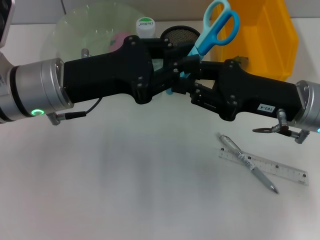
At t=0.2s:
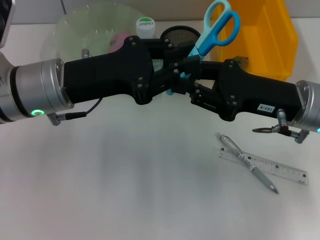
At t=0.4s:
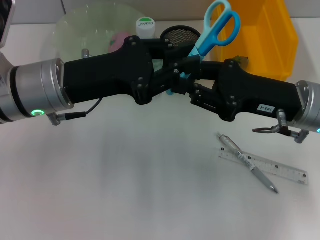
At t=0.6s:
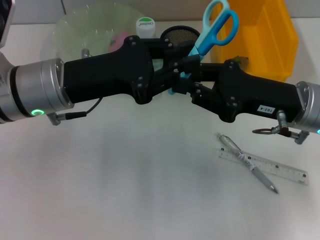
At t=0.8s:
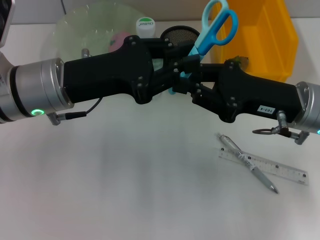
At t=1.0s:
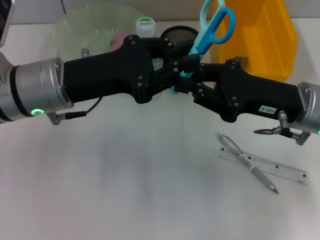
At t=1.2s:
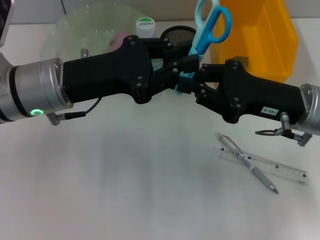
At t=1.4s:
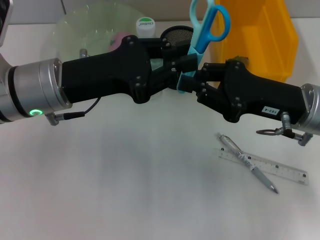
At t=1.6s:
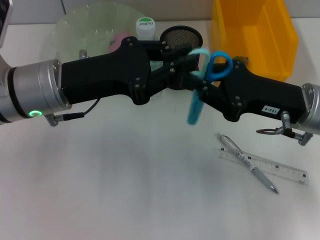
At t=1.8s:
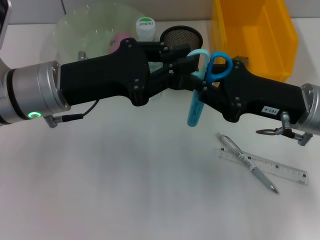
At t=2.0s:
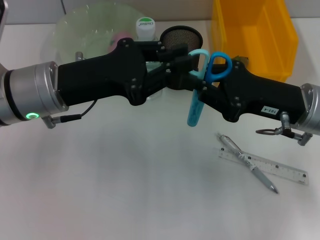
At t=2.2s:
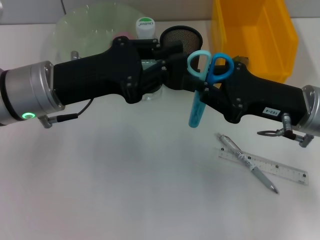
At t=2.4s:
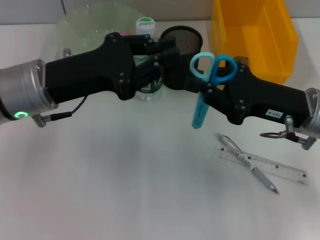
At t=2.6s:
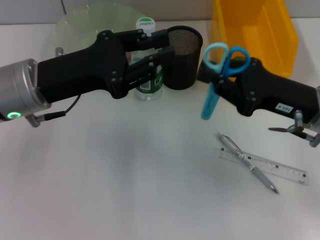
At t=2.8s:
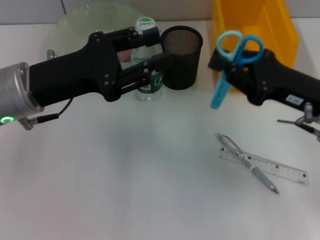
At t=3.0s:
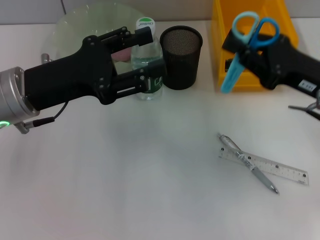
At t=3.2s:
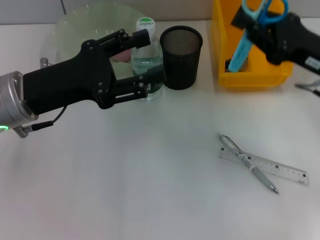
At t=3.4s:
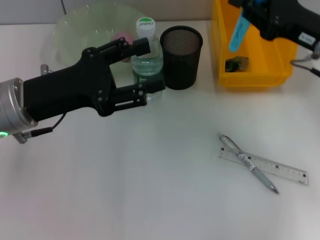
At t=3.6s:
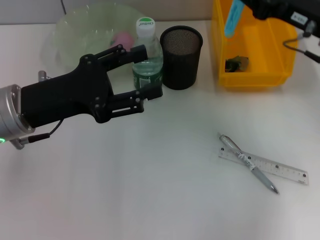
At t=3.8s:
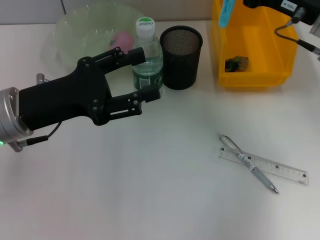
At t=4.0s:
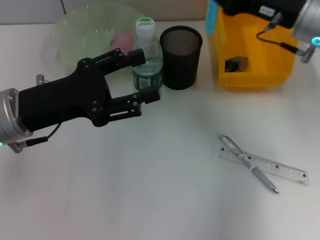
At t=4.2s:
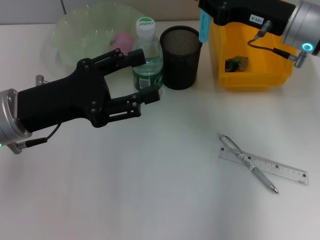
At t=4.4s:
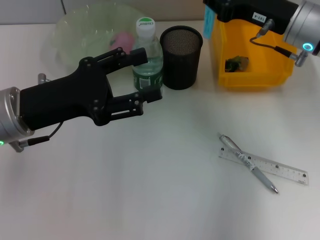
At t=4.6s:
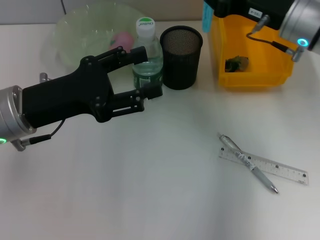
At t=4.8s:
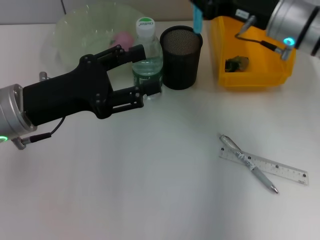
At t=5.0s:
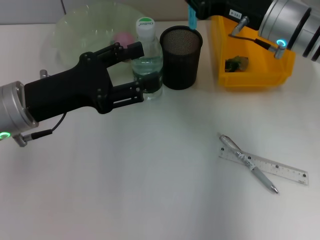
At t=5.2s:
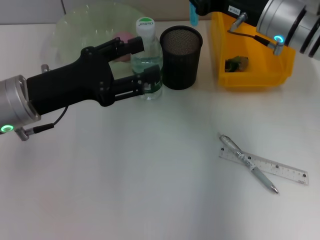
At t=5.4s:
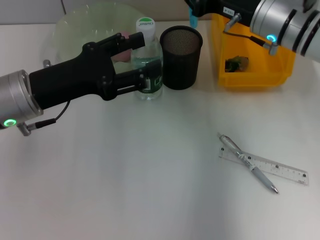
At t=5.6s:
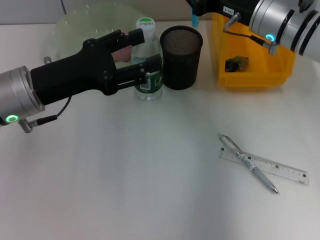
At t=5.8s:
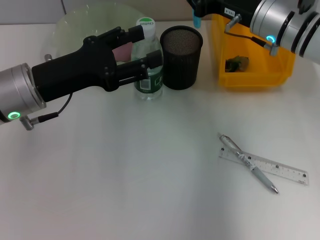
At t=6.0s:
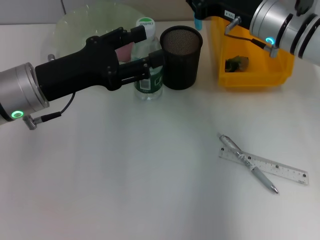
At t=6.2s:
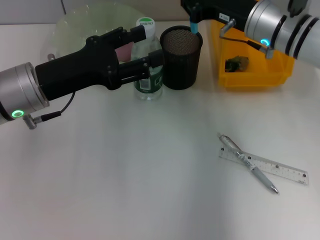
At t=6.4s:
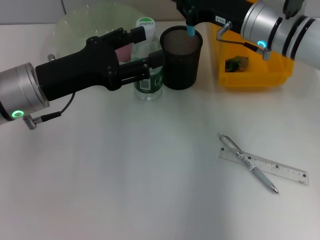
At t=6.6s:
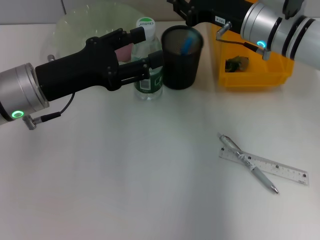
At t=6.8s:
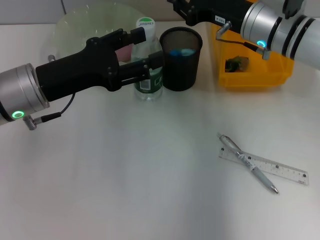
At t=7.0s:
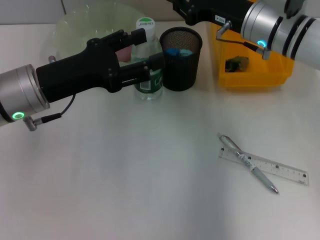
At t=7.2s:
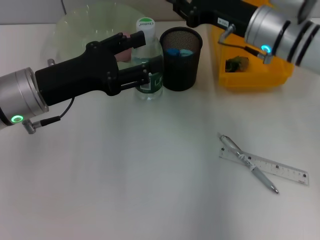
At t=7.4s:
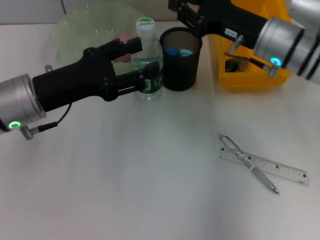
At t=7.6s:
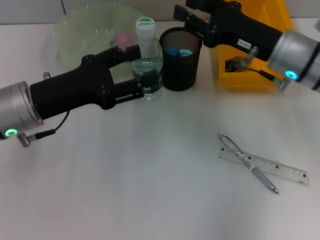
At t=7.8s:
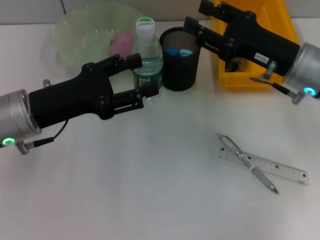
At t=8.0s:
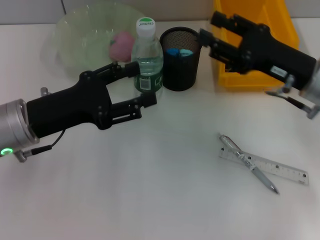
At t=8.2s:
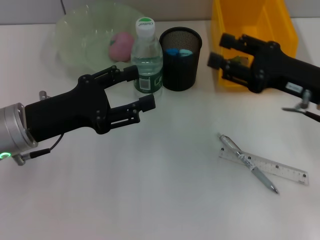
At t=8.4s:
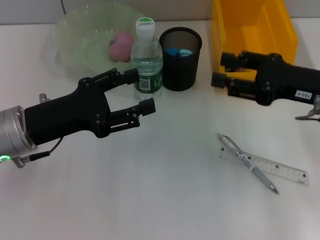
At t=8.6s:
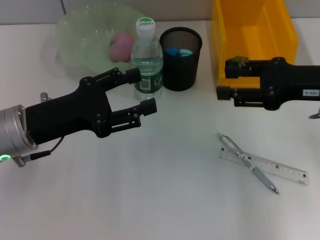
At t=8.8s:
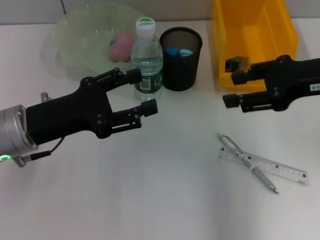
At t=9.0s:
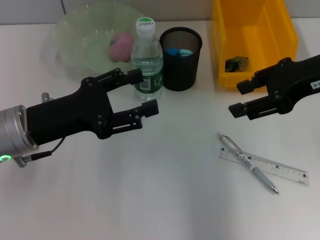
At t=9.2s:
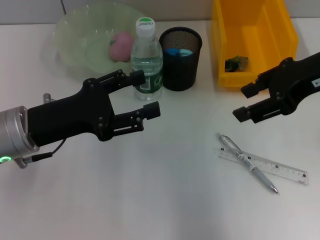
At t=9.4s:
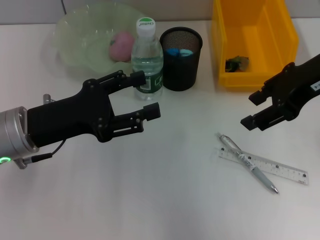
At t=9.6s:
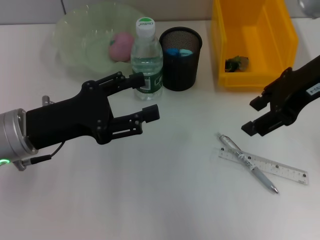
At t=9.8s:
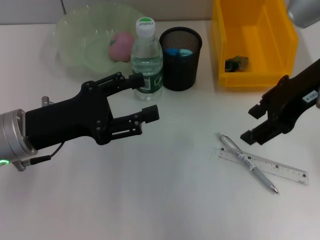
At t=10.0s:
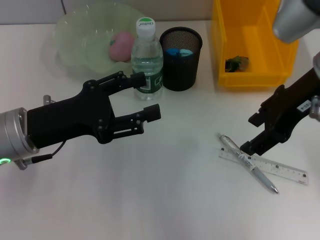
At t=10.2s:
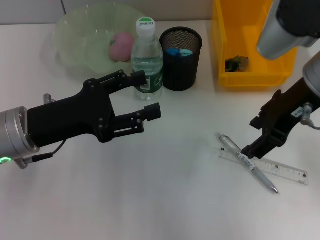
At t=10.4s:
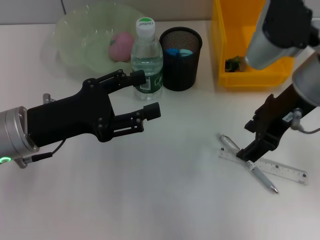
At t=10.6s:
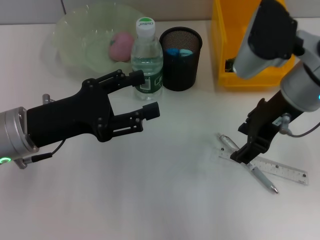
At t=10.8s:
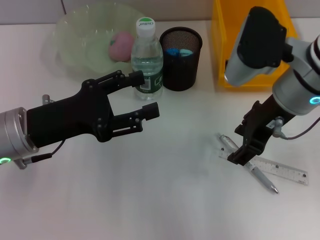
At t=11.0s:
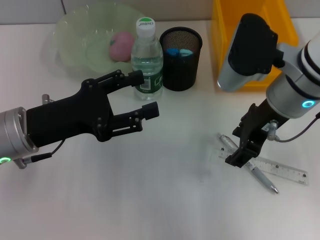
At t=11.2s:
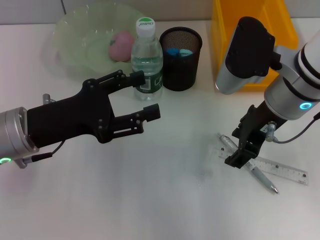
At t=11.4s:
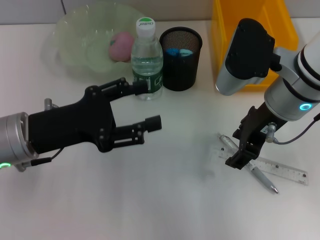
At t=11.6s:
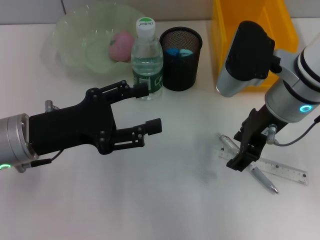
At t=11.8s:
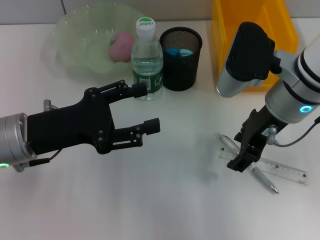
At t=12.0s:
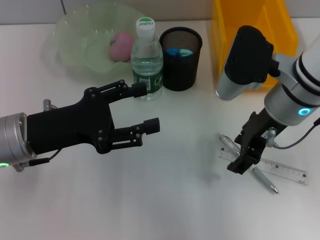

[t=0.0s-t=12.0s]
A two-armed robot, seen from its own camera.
Step, t=0.0s to t=2.4s: Pass the blue scissors from the left hand to the right hand.
Step, t=2.6s to t=7.0s: Place the blue scissors into the pen holder with the right hand.
t=0.0s to t=1.6s: Both grippers stay about where they are.
t=1.6s to t=3.0s: The left gripper opens.
t=3.0s to t=4.4s: The right gripper travels forward by roughly 10 cm.
t=4.4s to t=6.0s: The grippers make only small movements.
t=6.0s to t=7.6s: The right gripper shifts about 5 cm backward.
t=7.6s to t=9.0s: The right gripper moves upward, approximately 10 cm, and opens its fingers.
t=9.0s to t=10.4s: The right gripper heads to the left, covering about 5 cm.
t=10.4s to t=12.0s: The right gripper moves approximately 5 cm.

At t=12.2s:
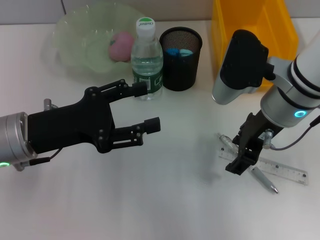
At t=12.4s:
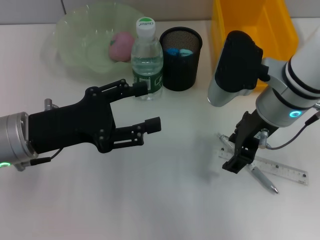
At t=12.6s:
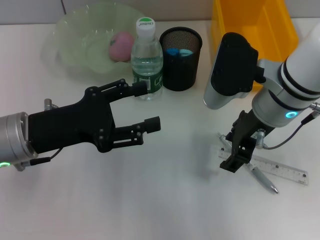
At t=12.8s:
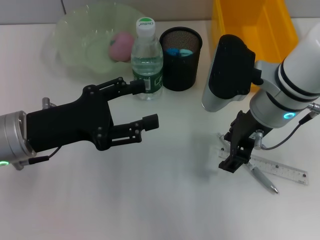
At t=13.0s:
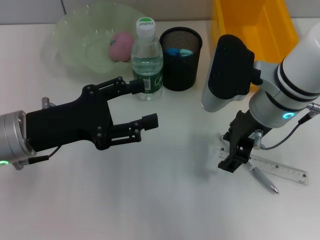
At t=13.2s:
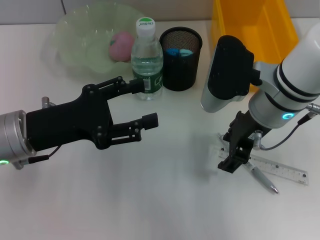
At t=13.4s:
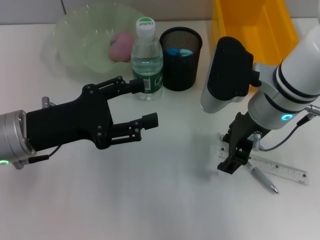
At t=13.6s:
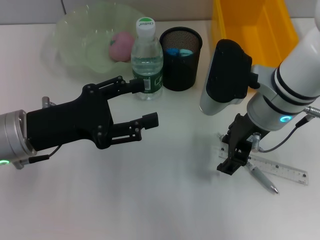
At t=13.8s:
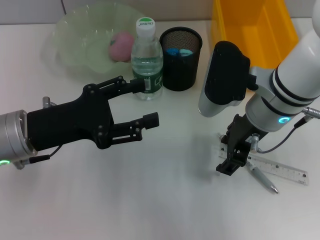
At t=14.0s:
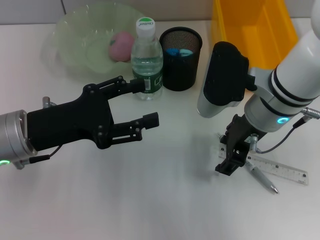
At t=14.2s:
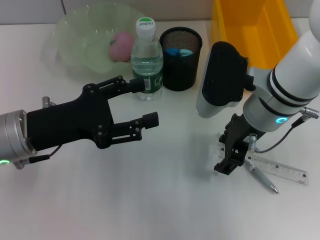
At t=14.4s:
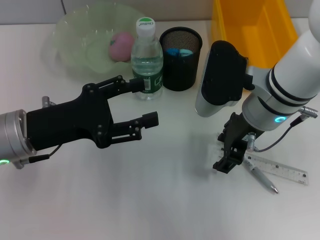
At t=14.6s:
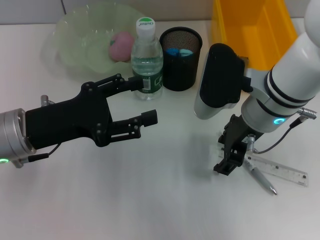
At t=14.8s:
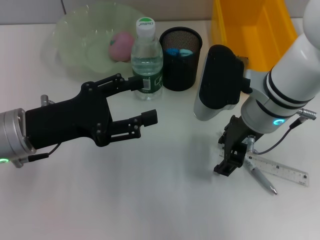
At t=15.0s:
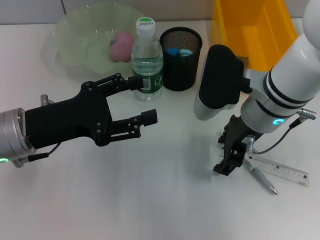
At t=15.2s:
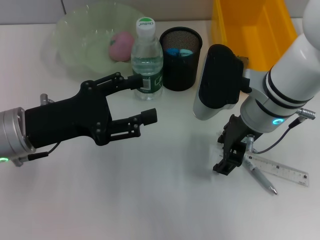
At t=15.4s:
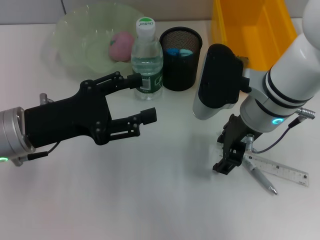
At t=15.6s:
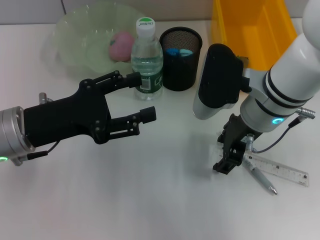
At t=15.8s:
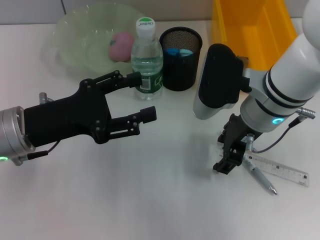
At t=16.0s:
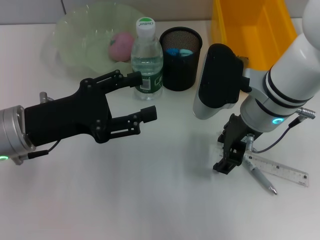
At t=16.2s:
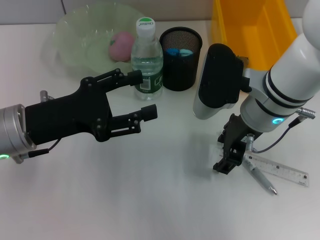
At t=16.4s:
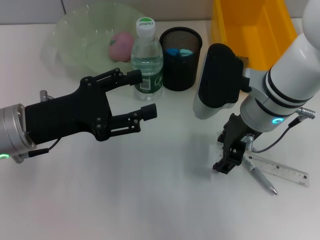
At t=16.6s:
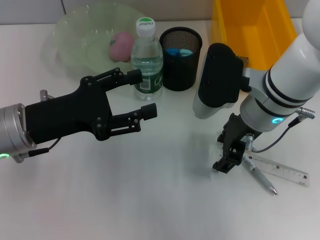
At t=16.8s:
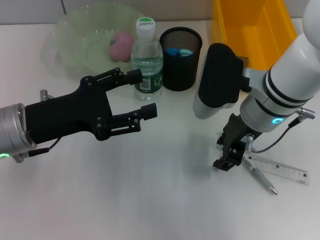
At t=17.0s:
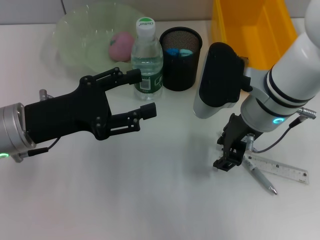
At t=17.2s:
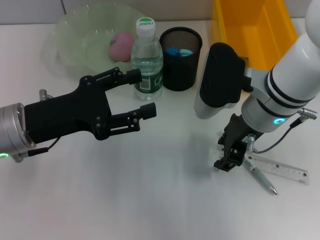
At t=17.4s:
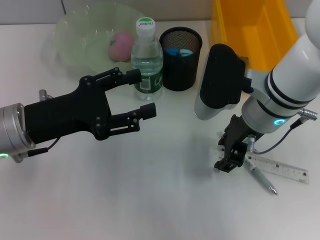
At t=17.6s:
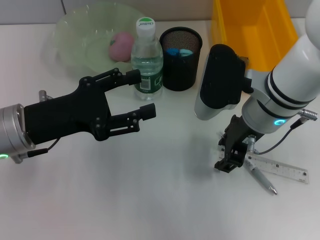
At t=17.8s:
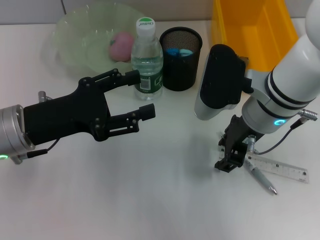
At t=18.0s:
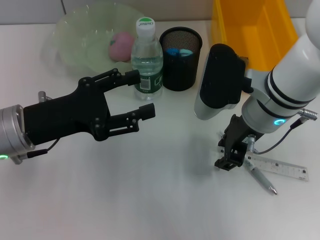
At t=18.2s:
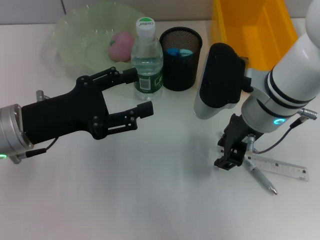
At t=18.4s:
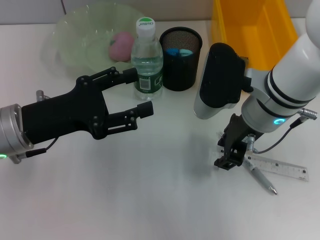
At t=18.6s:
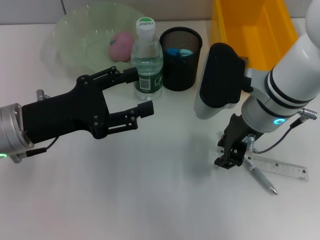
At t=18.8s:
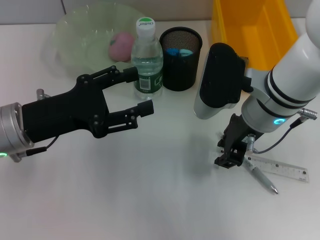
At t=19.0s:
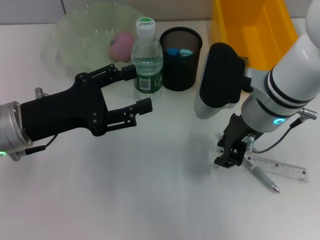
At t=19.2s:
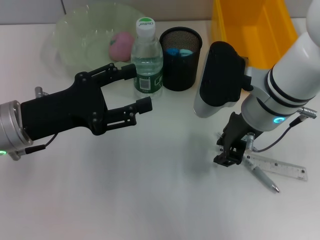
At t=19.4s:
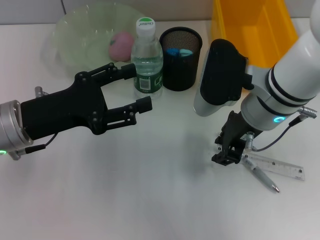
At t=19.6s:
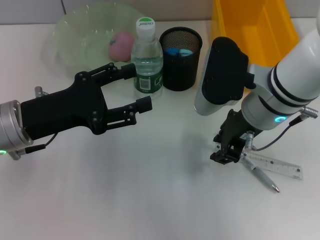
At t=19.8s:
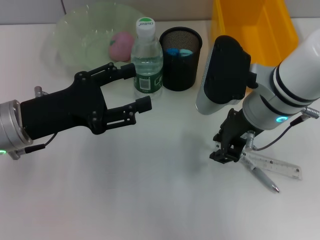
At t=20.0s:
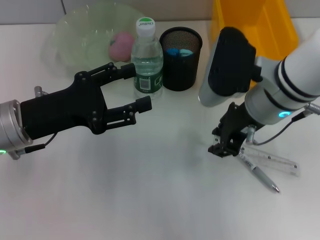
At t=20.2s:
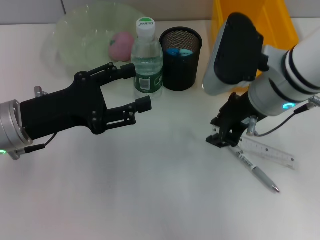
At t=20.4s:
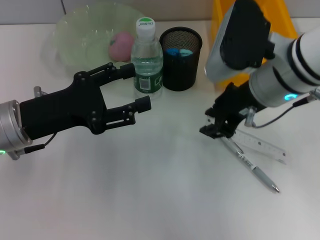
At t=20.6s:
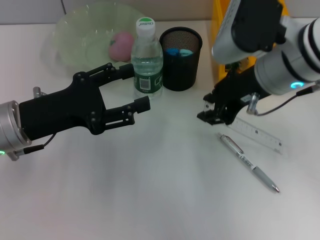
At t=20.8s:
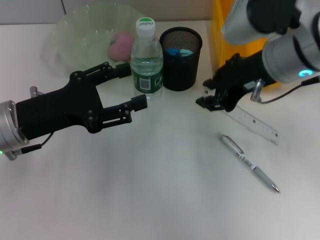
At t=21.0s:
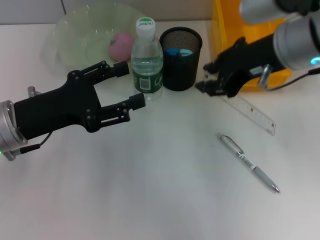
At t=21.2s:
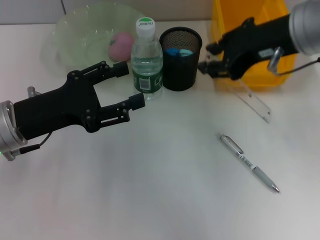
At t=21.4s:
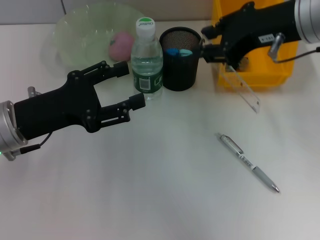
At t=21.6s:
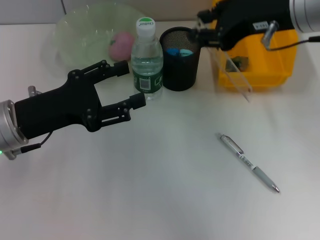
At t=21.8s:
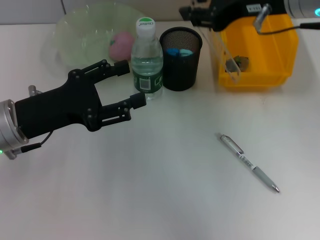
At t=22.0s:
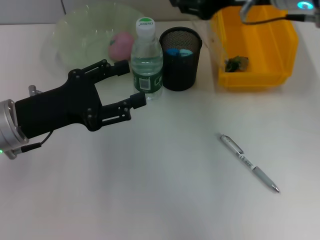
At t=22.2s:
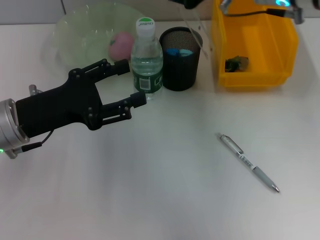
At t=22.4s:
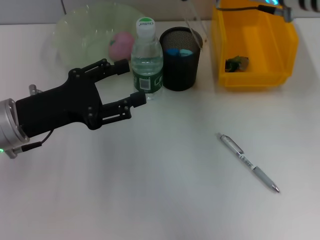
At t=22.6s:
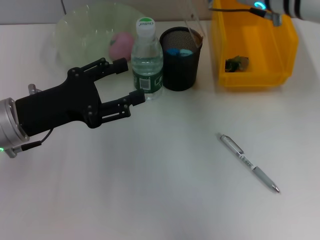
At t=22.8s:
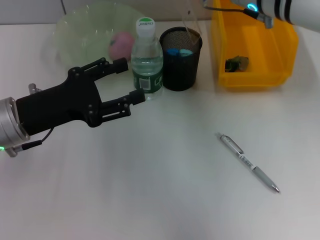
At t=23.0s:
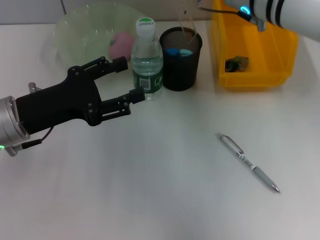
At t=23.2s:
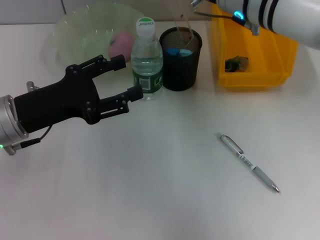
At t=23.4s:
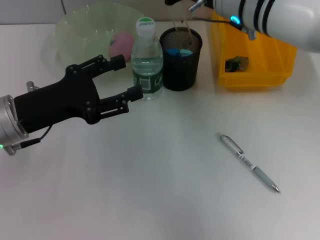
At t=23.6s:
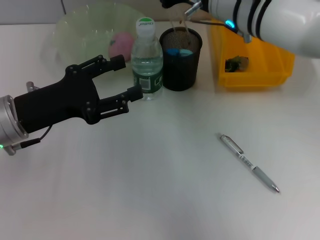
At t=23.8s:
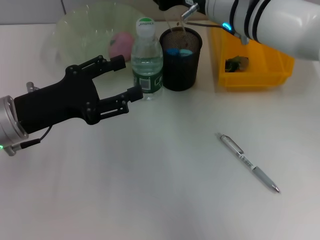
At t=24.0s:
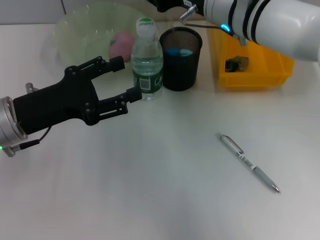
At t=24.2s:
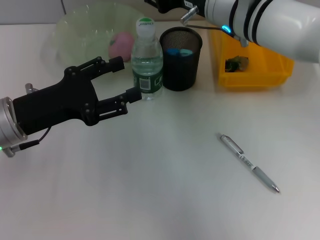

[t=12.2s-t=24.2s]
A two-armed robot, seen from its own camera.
Step, t=12.2s to t=20.2s: Grab the ruler with the right hand.
t=12.2s to t=13.8s: The grippers stay close to where they were, moving slightly.
t=13.8s to t=19.8s: Both grippers stay put.
t=19.8s to t=21.2s: The right gripper heads upward, covering some 10 cm.
t=21.2s to t=22.6s: The right gripper is displaced forward by roughly 5 cm.
t=22.6s to t=24.2s: The right gripper shifts by approximately 5 cm.
